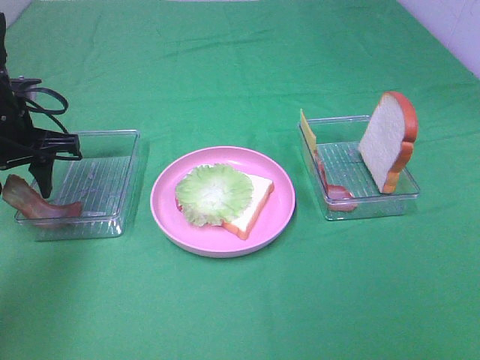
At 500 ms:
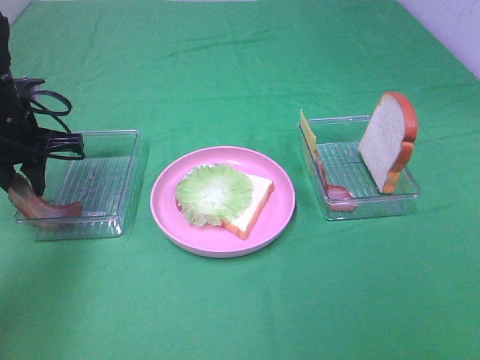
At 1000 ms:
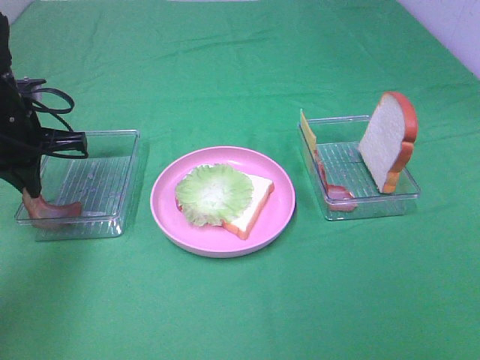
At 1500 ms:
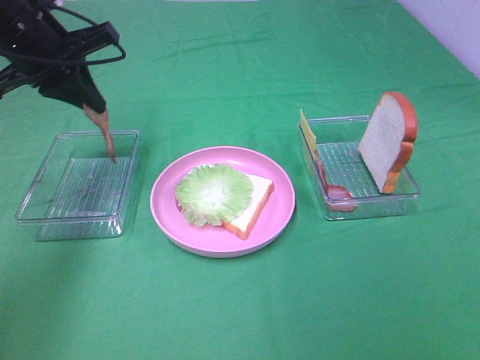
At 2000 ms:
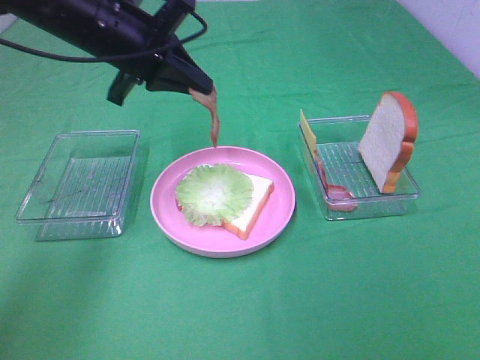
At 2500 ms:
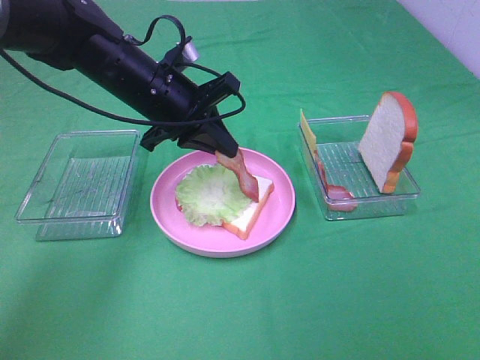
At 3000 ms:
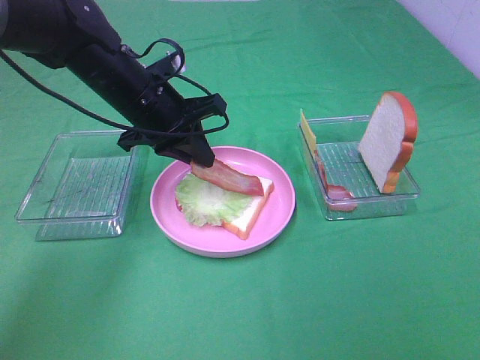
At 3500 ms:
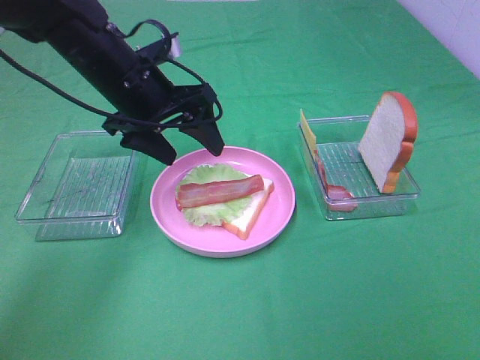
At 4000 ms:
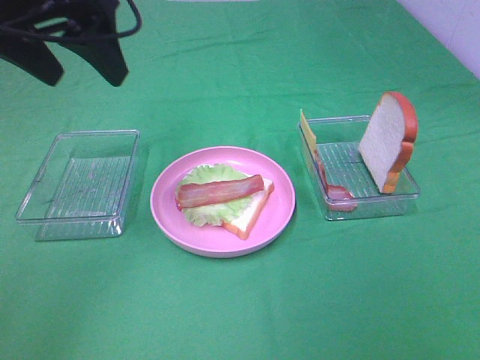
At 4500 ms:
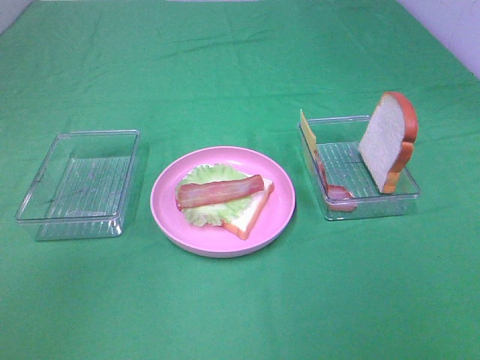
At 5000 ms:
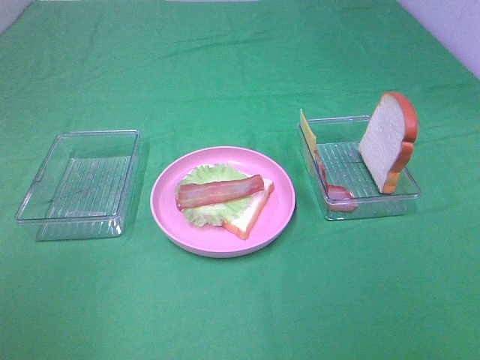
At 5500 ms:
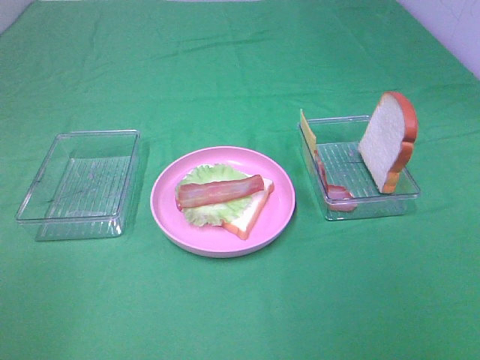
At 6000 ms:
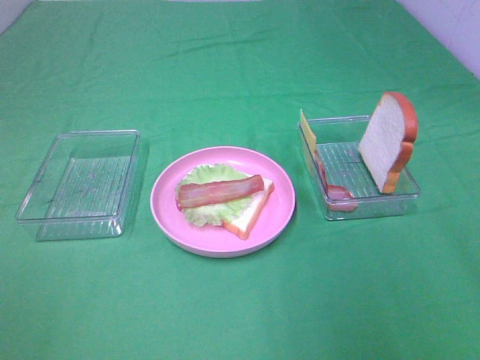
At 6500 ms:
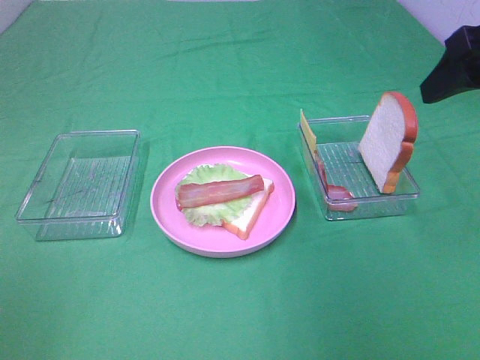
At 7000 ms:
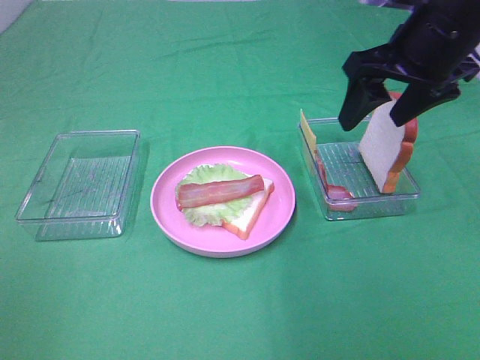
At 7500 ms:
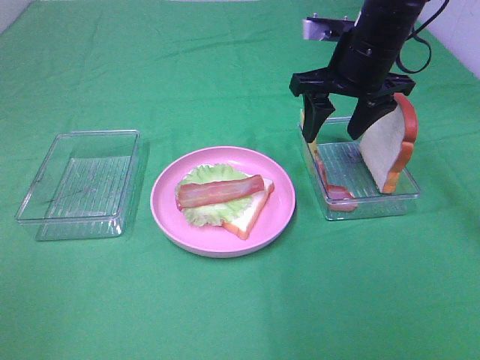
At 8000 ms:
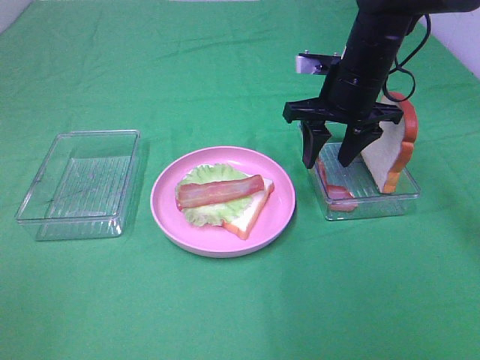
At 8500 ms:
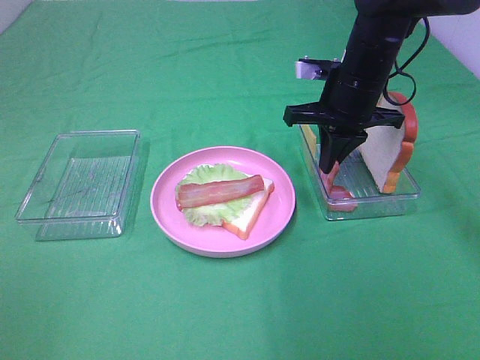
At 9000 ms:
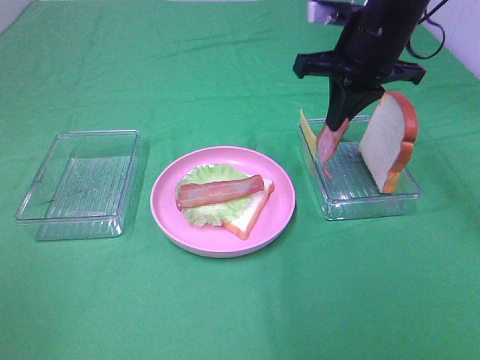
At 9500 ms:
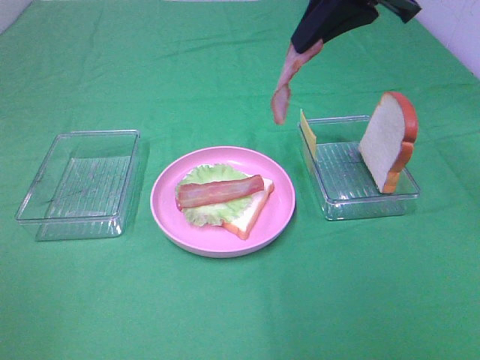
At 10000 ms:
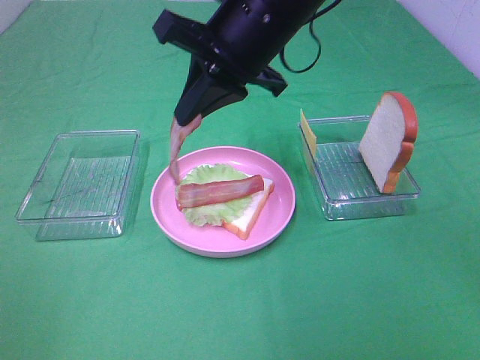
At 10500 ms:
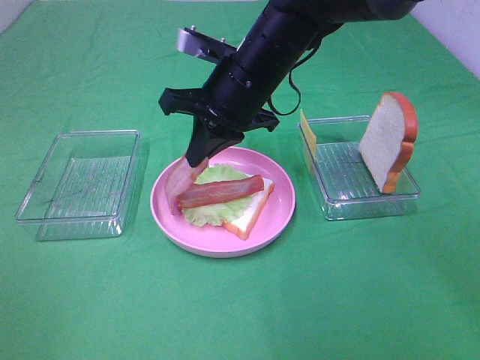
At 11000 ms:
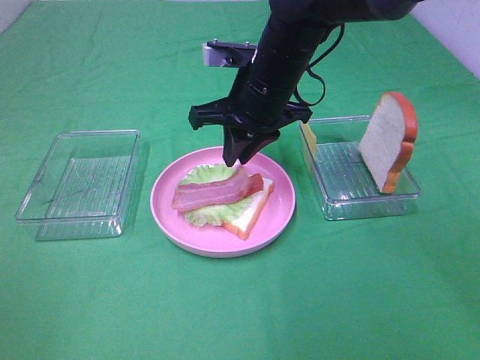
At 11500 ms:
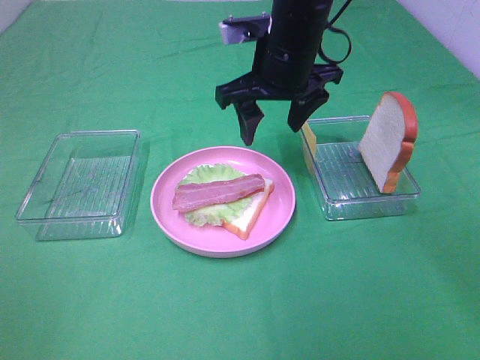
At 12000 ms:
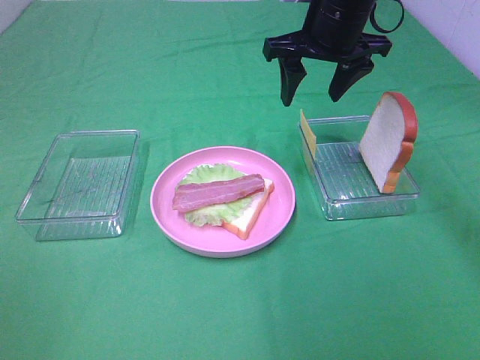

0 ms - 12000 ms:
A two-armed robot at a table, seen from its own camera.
Task of the whole recording: Make sandwiches.
Step, 1500 ms - 3000 ms: Left hand:place bacon on lettuce slice.
Step, 3500 ms - 8500 ms: Right hand:grab the bacon.
Step, 9000 ms - 11500 ms: Right hand:place bacon on bacon.
0 ms - 2000 ms: The left gripper goes some 15 cm to the right and upward, and closes its fingers.
2000 ms - 4000 ms: The left gripper is displaced upward, backward and to the left by about 15 cm, and opens.
4000 ms - 6000 ms: The left gripper shifts roughly 35 cm backward and to the left.
6000 ms - 8000 ms: The right gripper is displaced forward, downward and to the left by roughly 35 cm.
8000 ms - 10000 ms: The right gripper goes some 15 cm to the left, upward and backward, and closes up.
10000 ms - 12000 ms: The right gripper travels to the right and forward by approximately 15 cm, and opens up.

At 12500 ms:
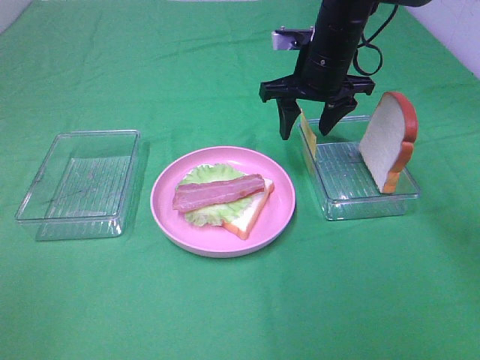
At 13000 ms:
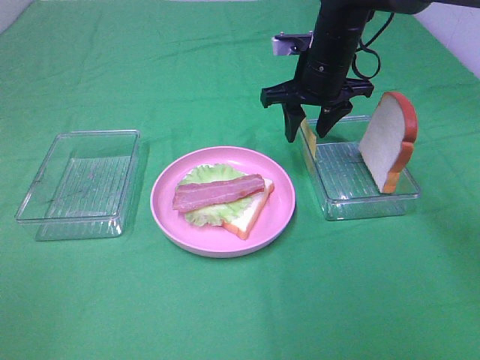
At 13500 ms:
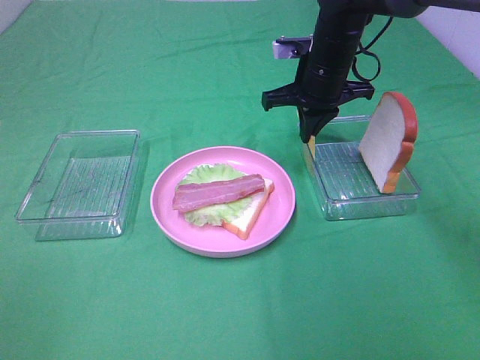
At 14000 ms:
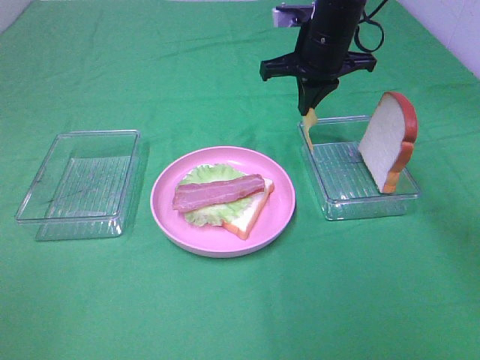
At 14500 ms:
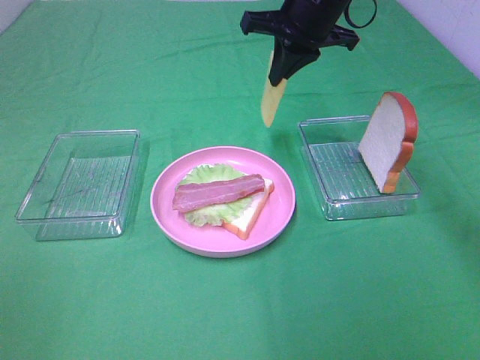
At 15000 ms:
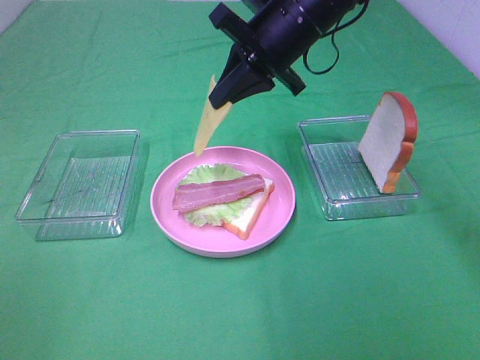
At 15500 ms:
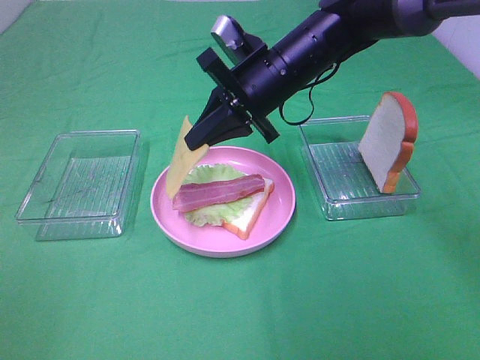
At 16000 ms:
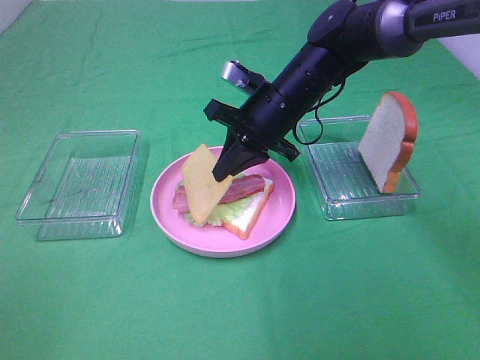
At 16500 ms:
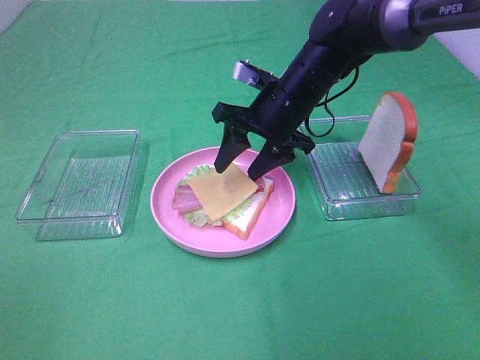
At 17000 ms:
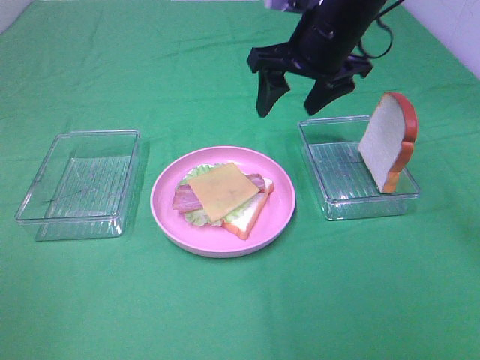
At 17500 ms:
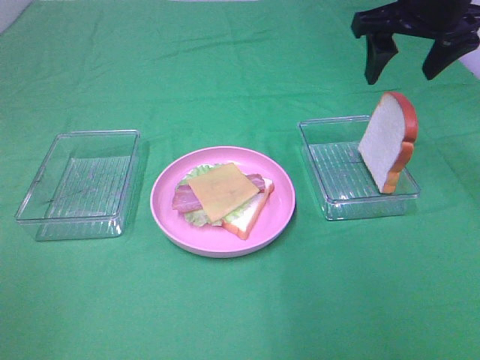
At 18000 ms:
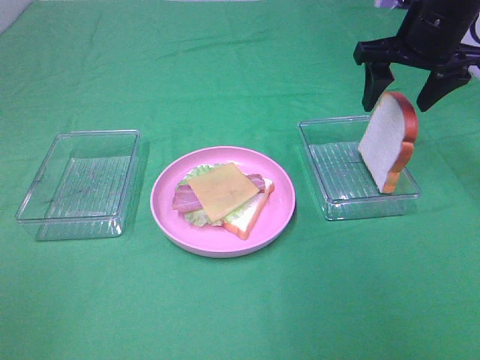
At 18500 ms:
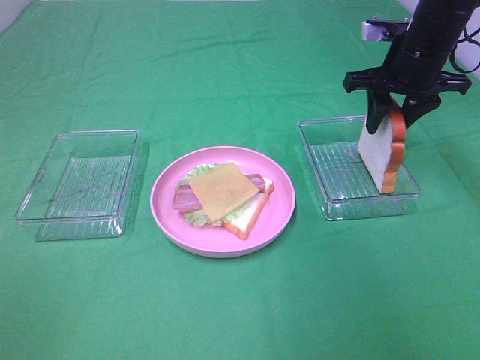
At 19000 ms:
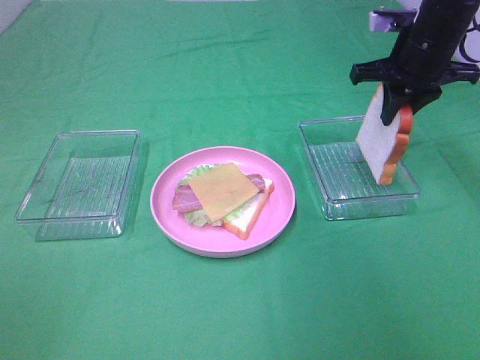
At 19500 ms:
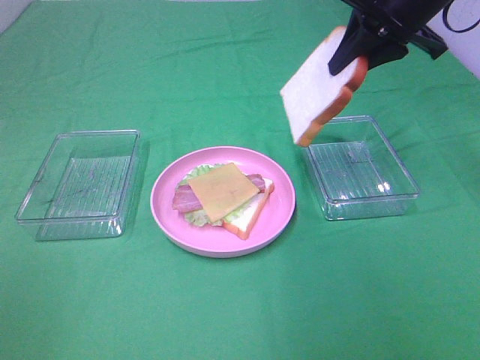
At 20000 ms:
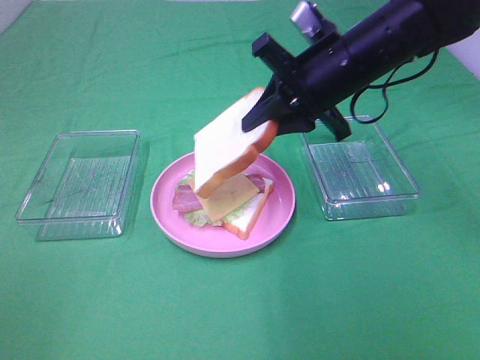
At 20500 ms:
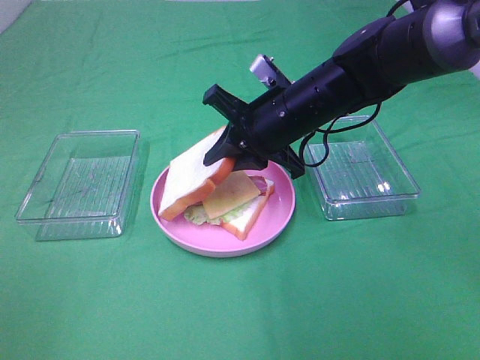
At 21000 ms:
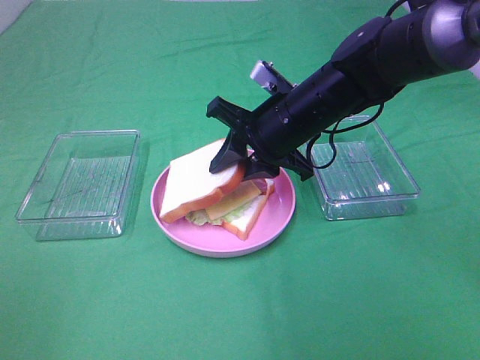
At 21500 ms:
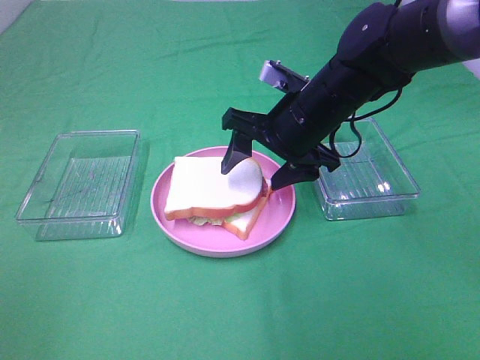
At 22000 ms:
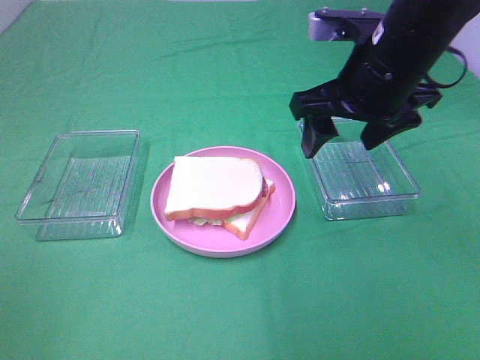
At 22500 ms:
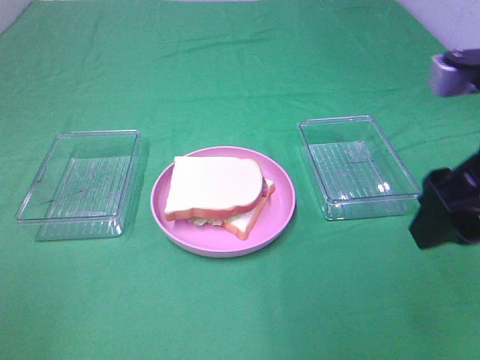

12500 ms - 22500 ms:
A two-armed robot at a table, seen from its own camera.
Task of the whole recording: Make sandwiches.
Step, 12500 ms - 13500 ms: Right hand:grab the cheese slice.
Step, 14000 ms - 16500 ms: Right hand:place the cheese slice on top of the bacon.
Step, 17000 ms - 19000 ms: Right hand:grab the bread slice.
Step, 19500 ms - 21500 ms: Right hand:place the bread slice on the cheese slice.
12500 ms - 14500 ms: The right gripper is displaced upward by about 10 cm, and closes its fingers.
14500 ms - 16500 ms: The right gripper heads downward, covering approximately 10 cm, and opens up.
16500 ms - 18500 ms: The right gripper travels to the right by some 15 cm.
18500 ms - 20500 ms: The right gripper is displaced to the left and backward by some 15 cm.
20500 ms - 22500 ms: The right gripper travels backward, to the right and upward by some 25 cm, and opens.
